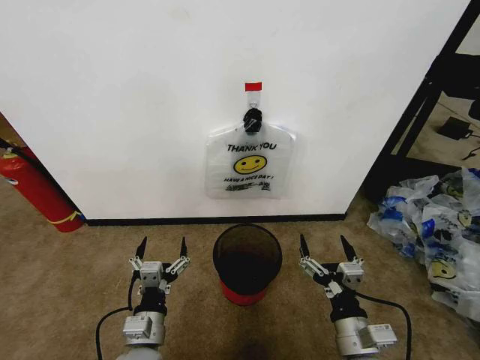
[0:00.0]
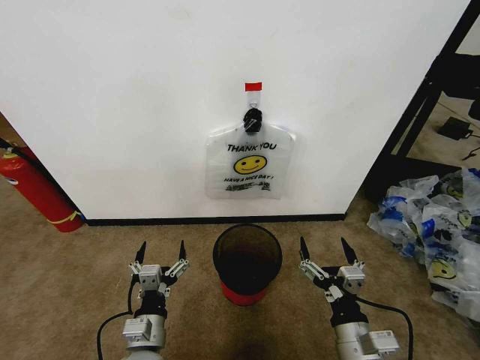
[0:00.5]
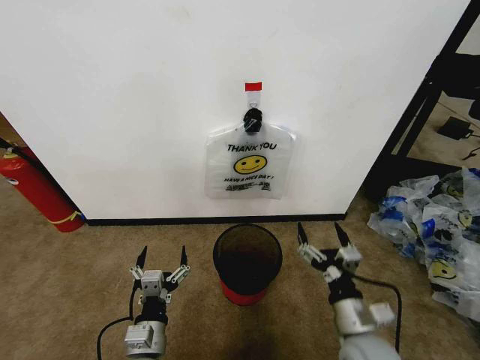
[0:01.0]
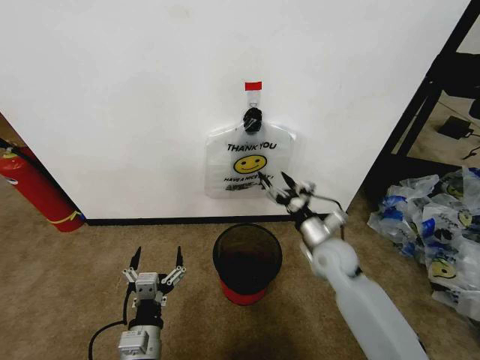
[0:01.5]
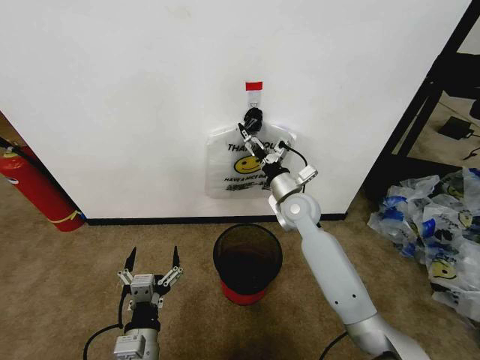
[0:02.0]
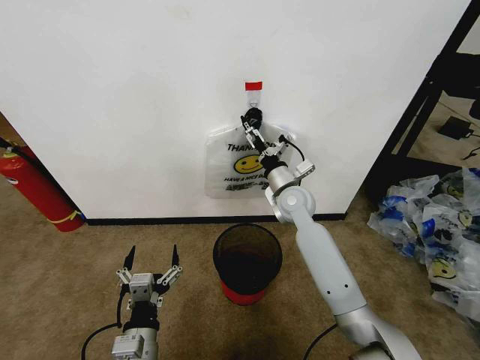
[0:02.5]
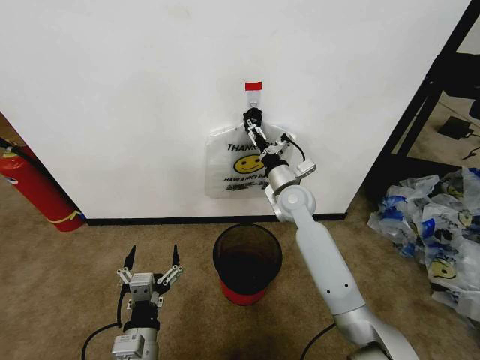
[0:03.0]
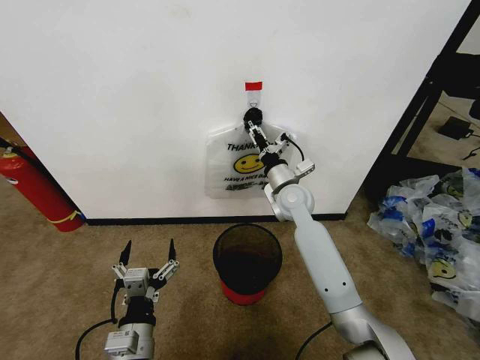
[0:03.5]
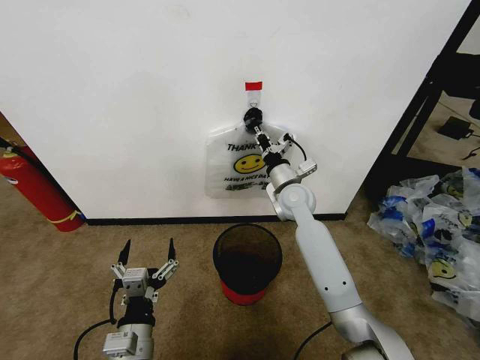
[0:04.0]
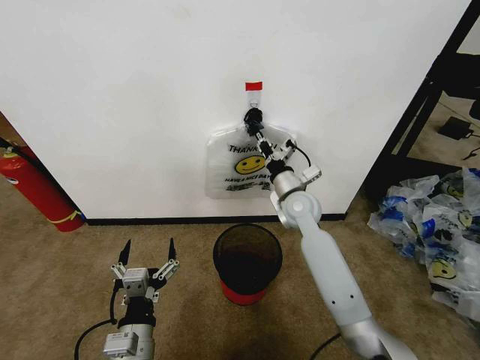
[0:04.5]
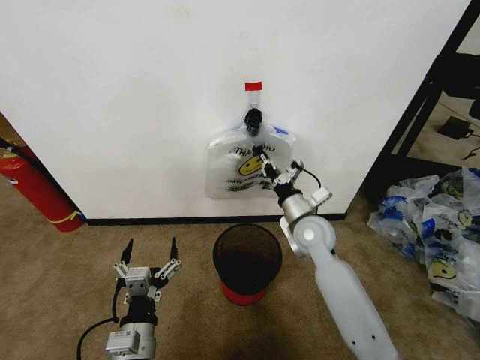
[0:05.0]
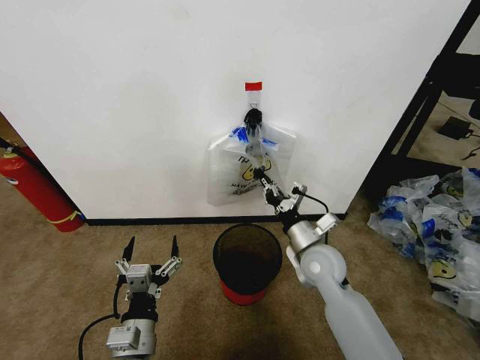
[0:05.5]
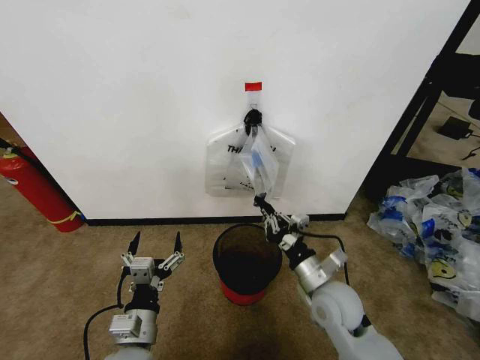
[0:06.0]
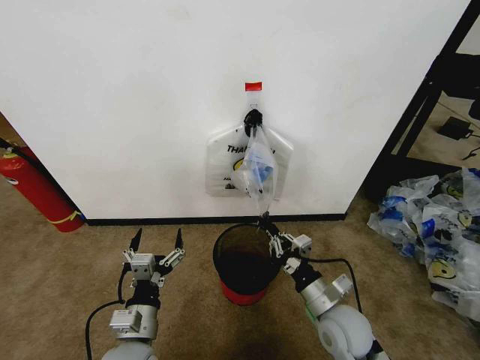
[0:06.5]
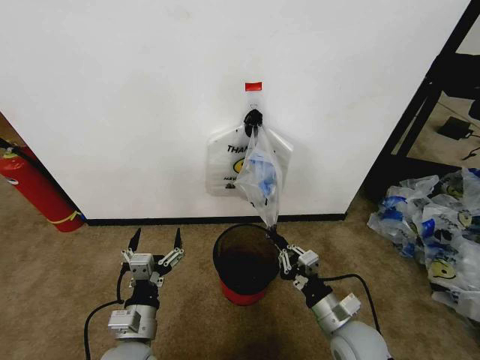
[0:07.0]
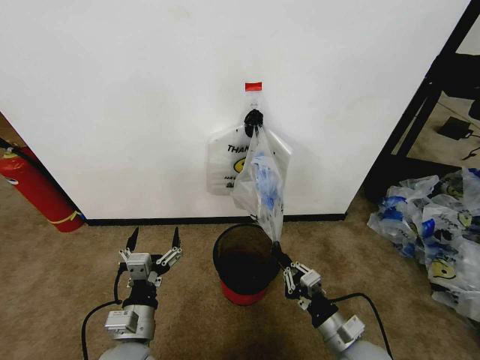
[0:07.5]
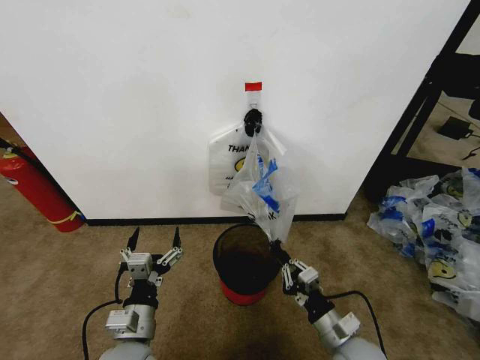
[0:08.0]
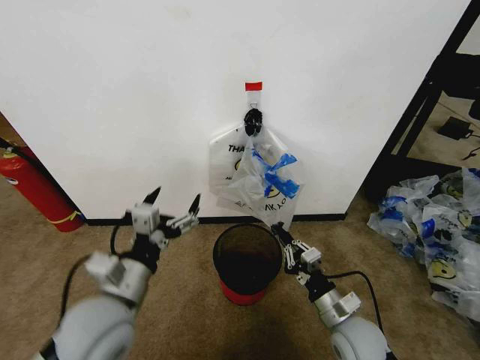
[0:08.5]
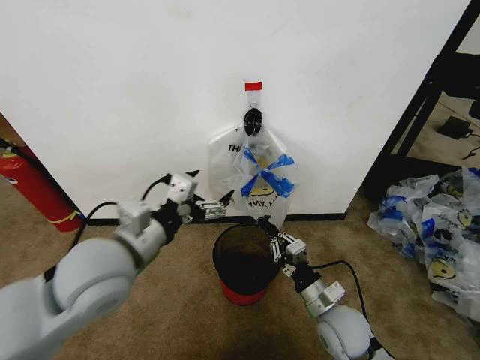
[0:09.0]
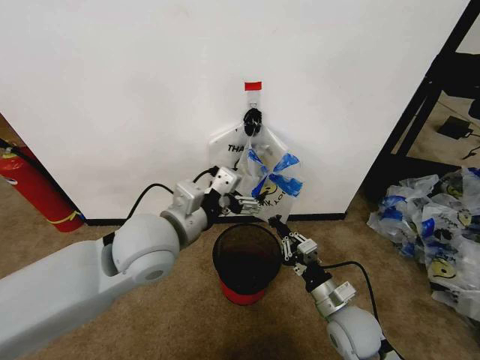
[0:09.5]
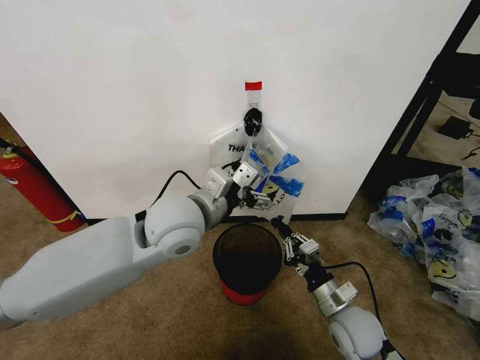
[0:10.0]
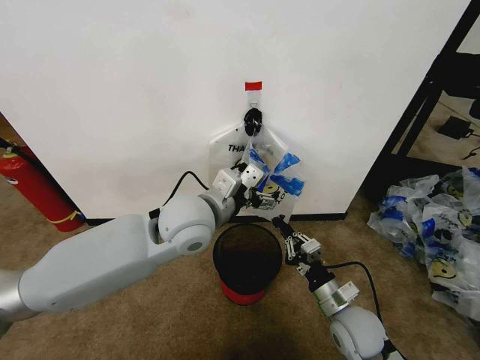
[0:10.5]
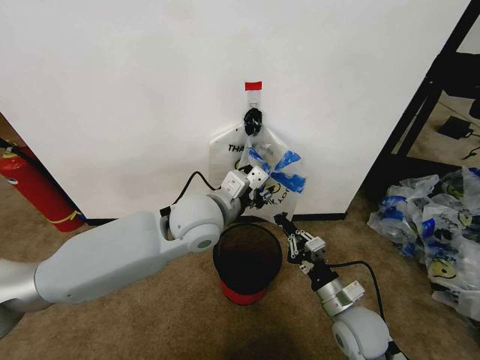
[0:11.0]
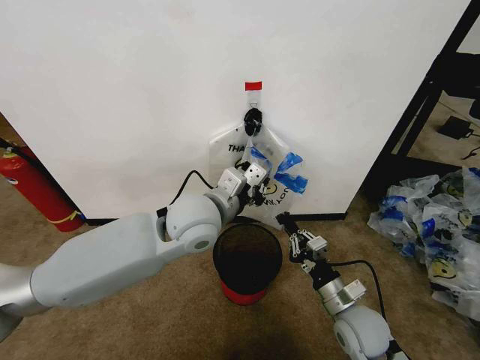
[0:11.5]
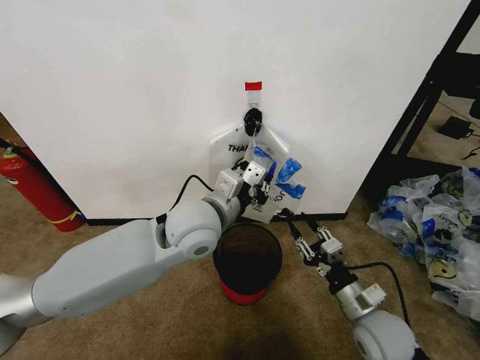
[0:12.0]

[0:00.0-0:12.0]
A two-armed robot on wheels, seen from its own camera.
Task of the whole recording: Pick up the garbage bag from the wall and place it over the trash bin.
0:02.0 to 0:04.0: The right gripper closes up.
0:04.0 to 0:06.0: The right gripper moves backward, approximately 20 cm.
0:06.0 to 0:08.0: The right gripper is displaced backward and downward by roughly 10 cm.
0:08.0 to 0:10.0: The right gripper moves forward, roughly 5 cm; the left gripper heads upward, forward and to the right, covering approximately 30 cm.
0:10.0 to 0:12.0: The right gripper changes place by roughly 5 cm, and opens up. The left gripper closes up.

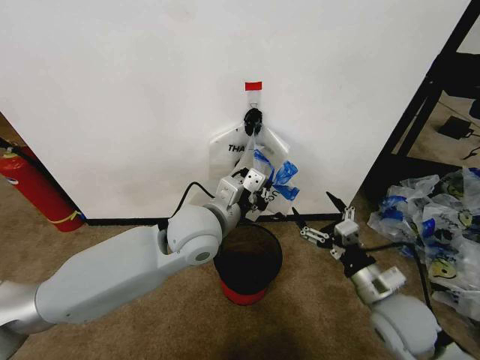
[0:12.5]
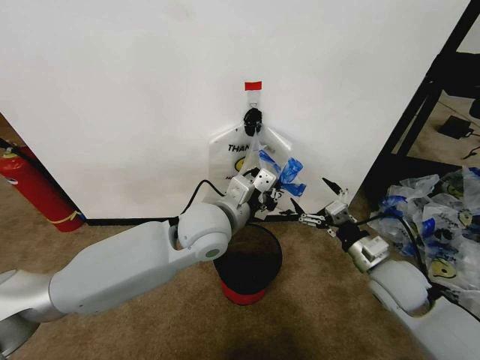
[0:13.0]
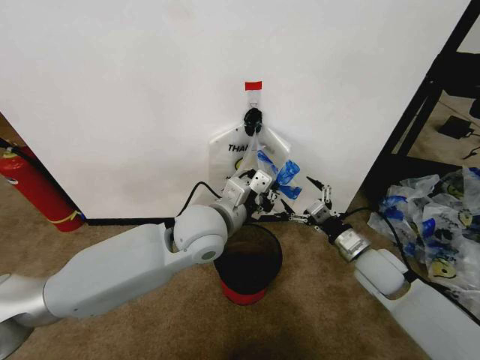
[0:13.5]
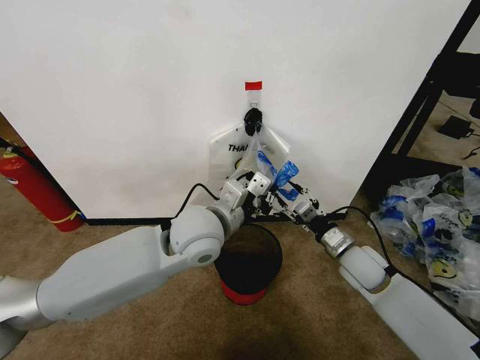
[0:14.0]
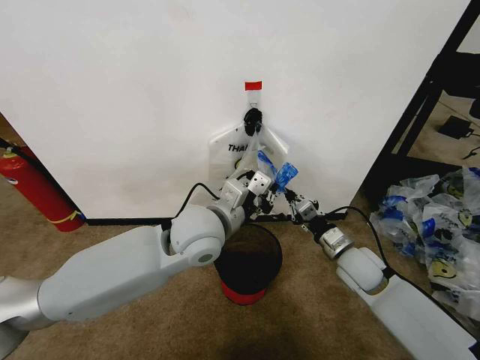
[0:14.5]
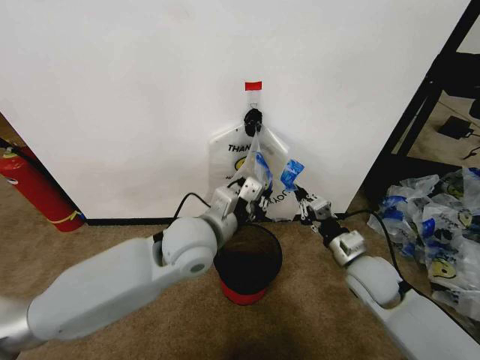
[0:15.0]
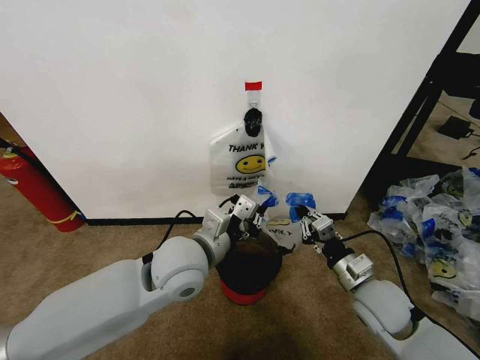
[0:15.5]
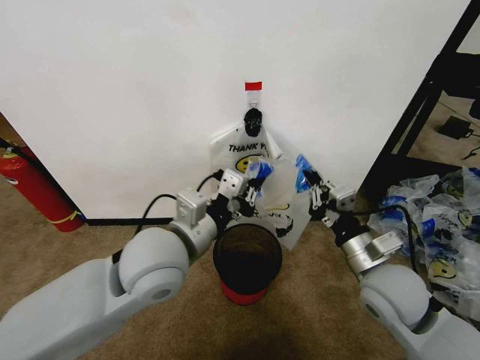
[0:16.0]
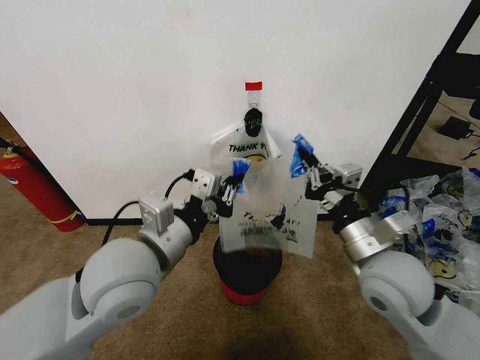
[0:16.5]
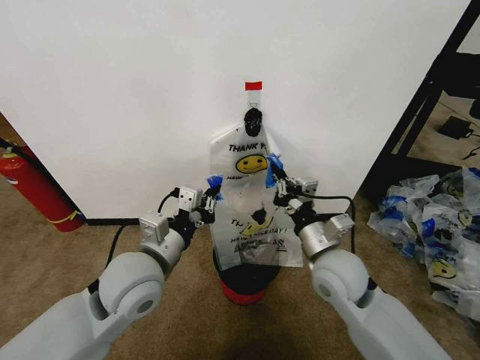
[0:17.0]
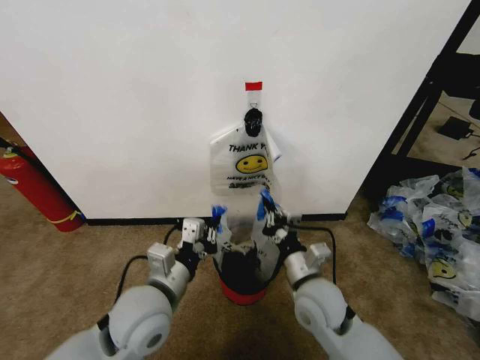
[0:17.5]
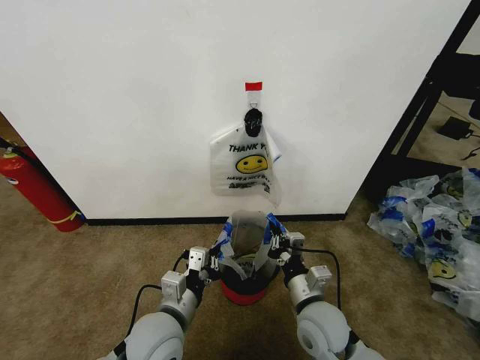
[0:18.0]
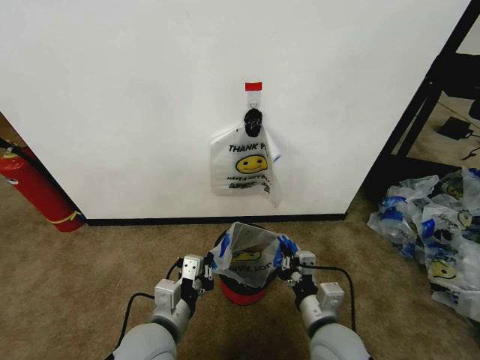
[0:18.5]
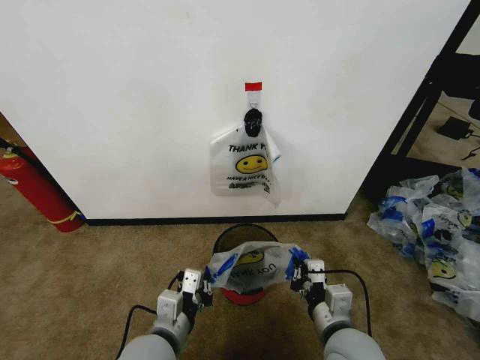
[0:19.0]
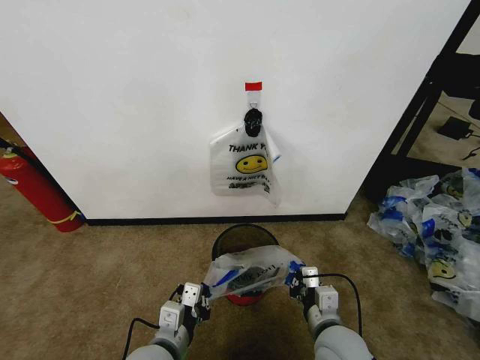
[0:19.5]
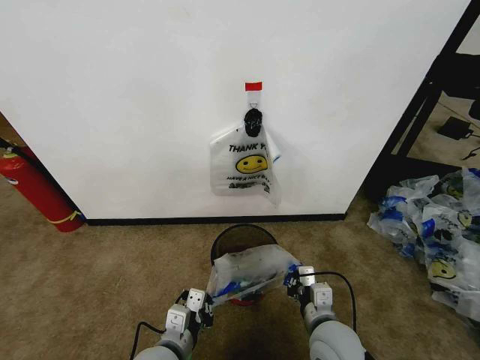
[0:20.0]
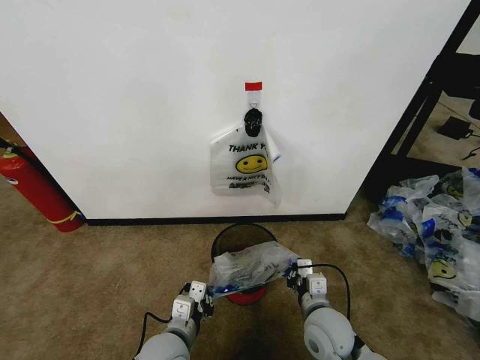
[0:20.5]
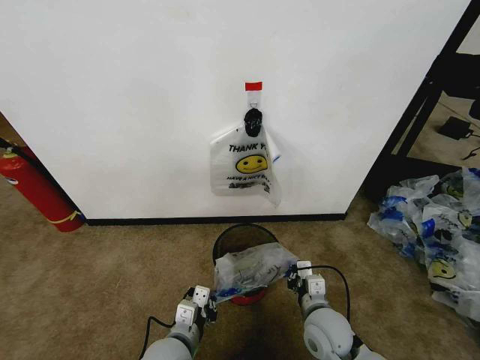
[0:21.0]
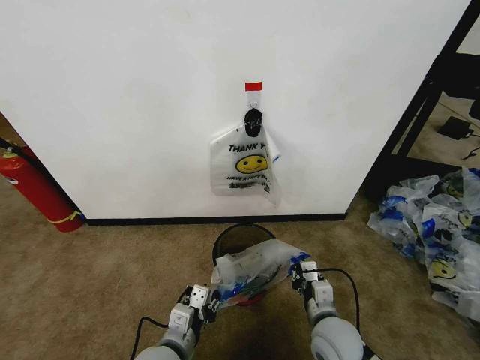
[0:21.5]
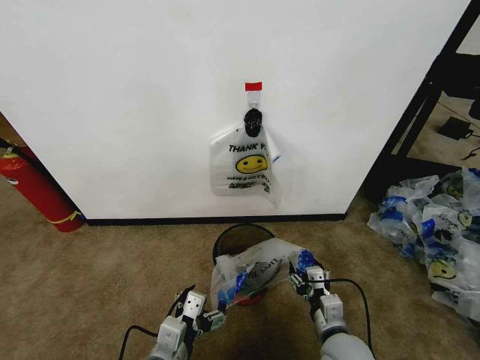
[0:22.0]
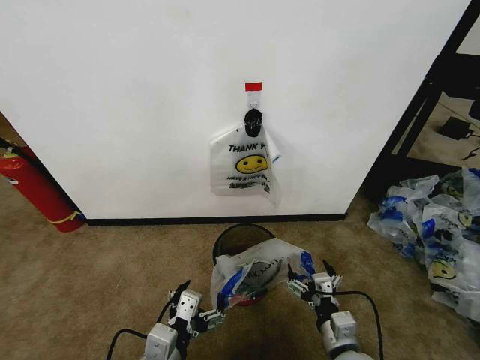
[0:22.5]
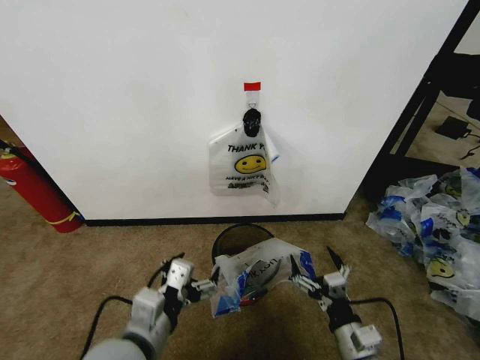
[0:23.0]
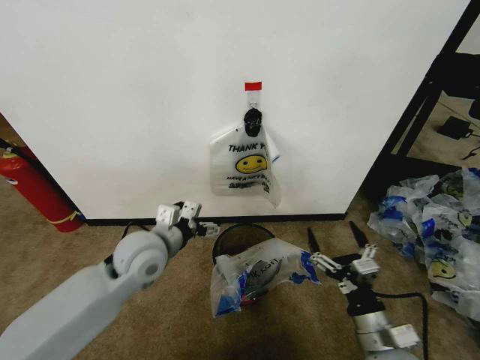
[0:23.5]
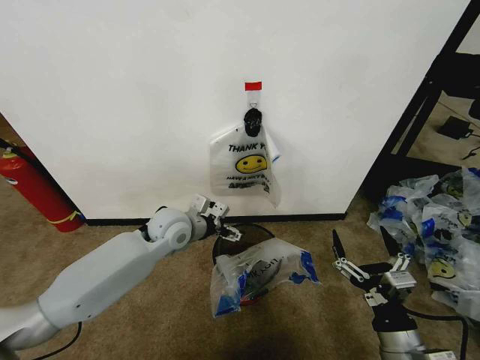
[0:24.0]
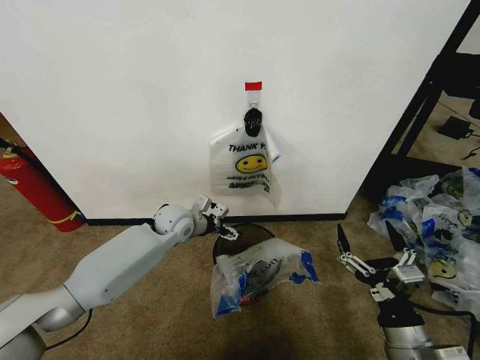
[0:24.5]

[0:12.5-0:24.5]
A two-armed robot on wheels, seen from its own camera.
Task of the whole recording: Pick up the garbage bag from the wall and place it over the trash bin.
0:12.5 to 0:14.5: The right gripper is displaced forward by approximately 10 cm, and closes its fingers.
0:14.5 to 0:16.5: The right gripper goes some 20 cm upward and backward; the left gripper goes about 15 cm backward and to the left.
0:16.5 to 0:18.5: The right gripper goes approximately 20 cm downward, to the left and backward. Meanwhile the left gripper shifts about 20 cm downward.
0:18.5 to 0:20.5: The left gripper travels downward by about 5 cm. Meanwhile the right gripper moves some 5 cm.
0:20.5 to 0:22.5: The right gripper is displaced backward by approximately 10 cm, and opens up. Meanwhile the left gripper shifts approximately 10 cm upward and backward, and opens its fingers.
0:22.5 to 0:24.5: The right gripper goes some 10 cm upward and to the right. Meanwhile the left gripper moves forward, approximately 35 cm.

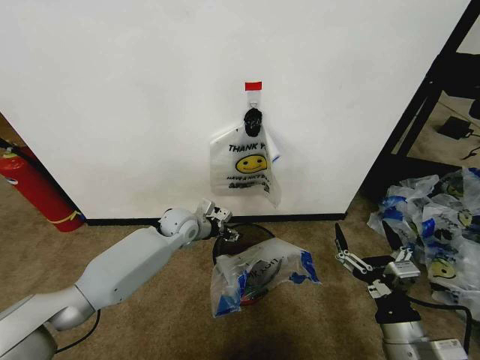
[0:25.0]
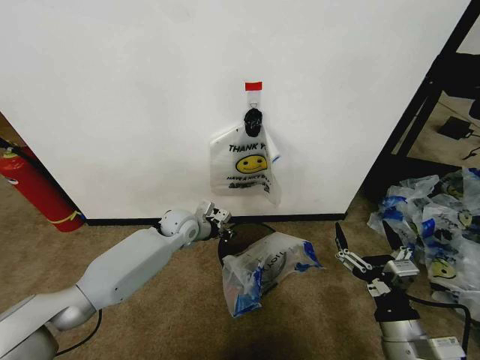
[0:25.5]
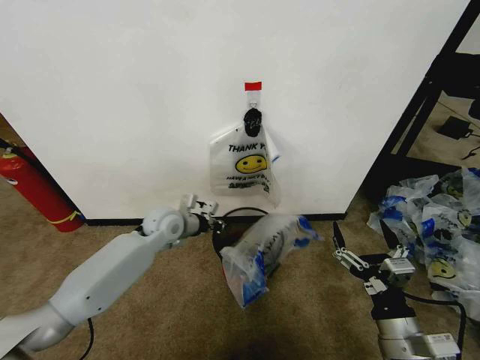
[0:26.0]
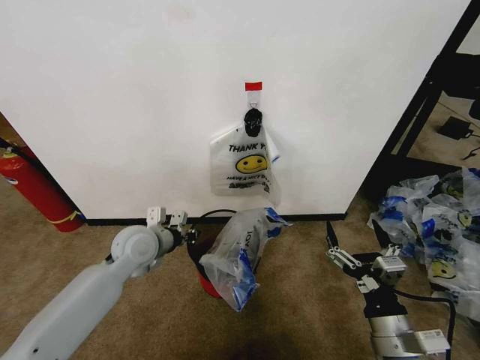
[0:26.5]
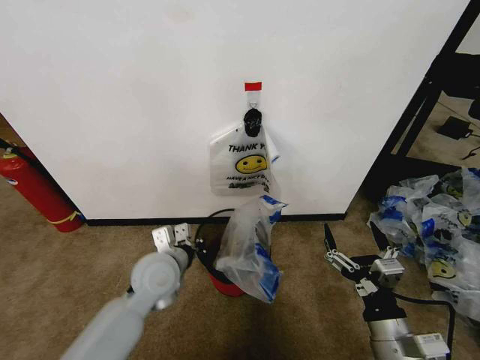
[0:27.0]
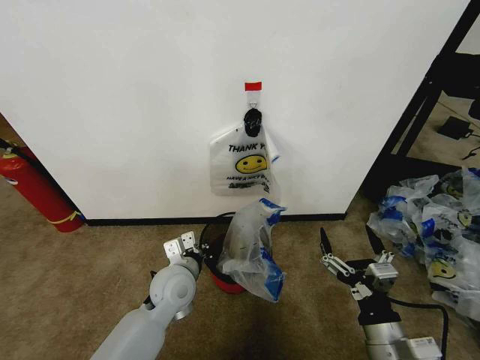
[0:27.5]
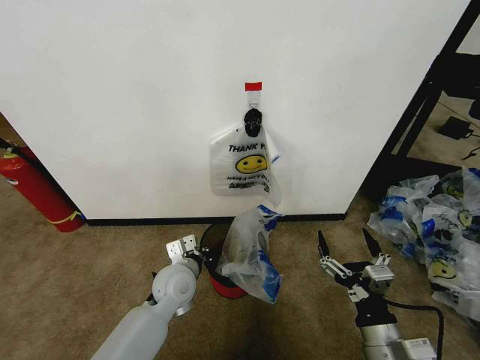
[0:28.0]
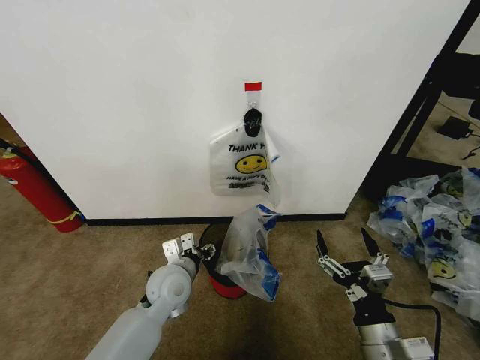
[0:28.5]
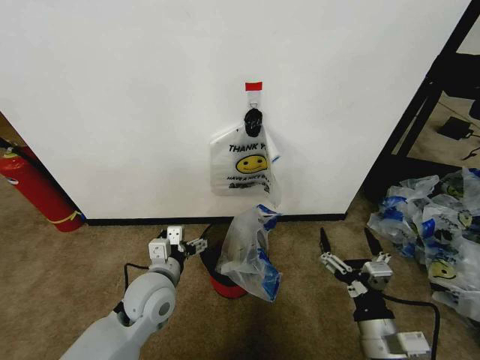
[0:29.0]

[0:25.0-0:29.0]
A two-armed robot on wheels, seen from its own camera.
Task of the whole recording: Pick up the garbage bag from the wall and place it over the trash bin.
0:25.0 to 0:27.0: The left gripper goes some 15 cm backward, and closes its fingers.
0:27.0 to 0:29.0: The left gripper opens its fingers.
